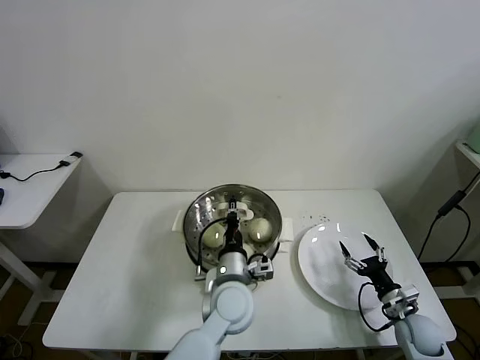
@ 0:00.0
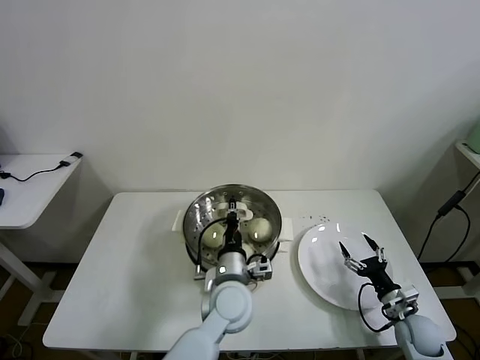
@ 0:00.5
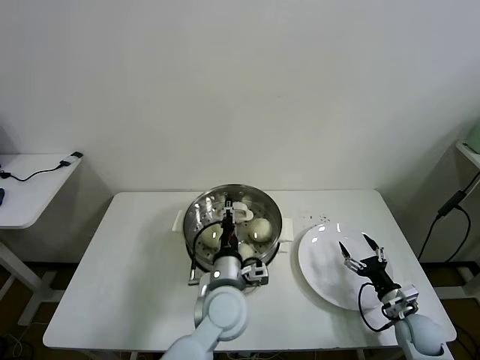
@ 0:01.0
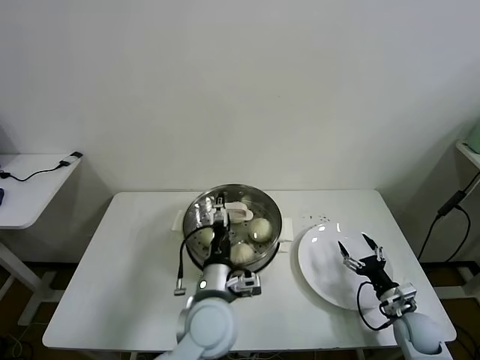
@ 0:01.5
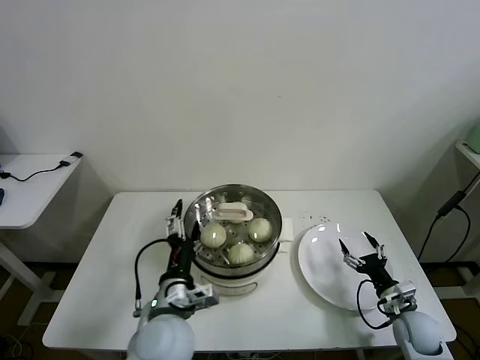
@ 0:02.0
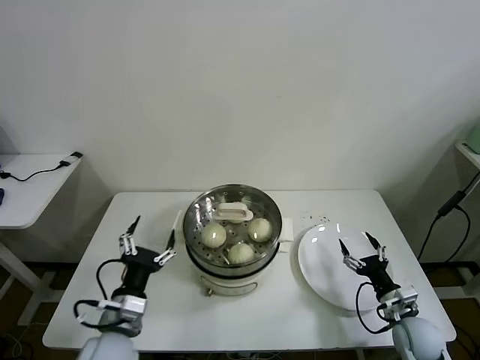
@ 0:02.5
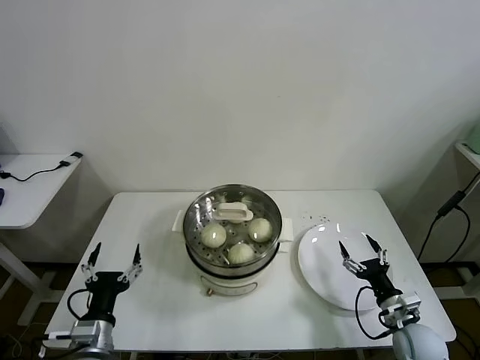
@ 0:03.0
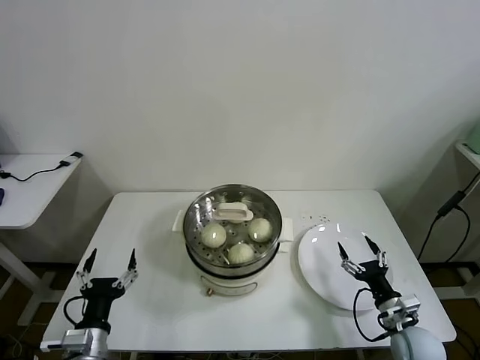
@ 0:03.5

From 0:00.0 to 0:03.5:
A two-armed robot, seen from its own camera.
Task of the whole recording: take steamed baozi put them in steamer then cover it.
From 0:00.0 to 0:02.0: The left gripper moves to the left and backward, about 10 cm, and opens its fingers.
From 0:02.0 to 0:03.5: The right gripper ends up roughly 5 cm from where it was; the left gripper is displaced to the left and downward by some 20 cm.
